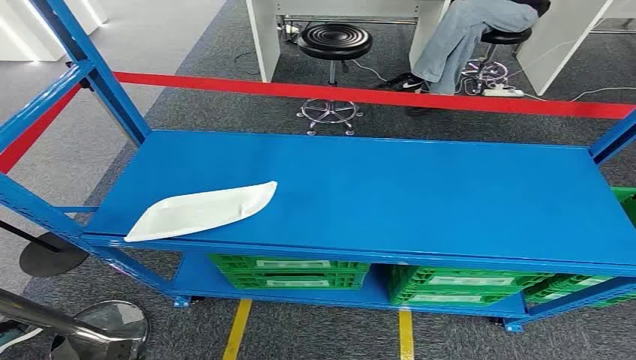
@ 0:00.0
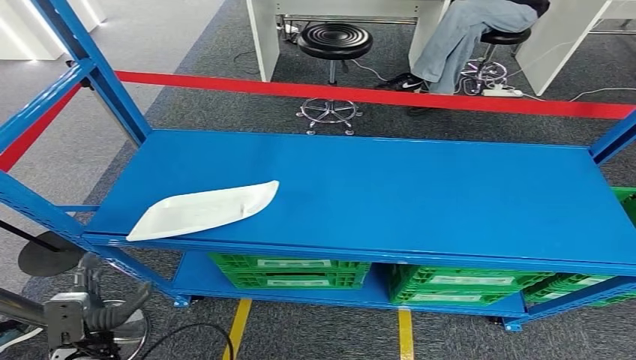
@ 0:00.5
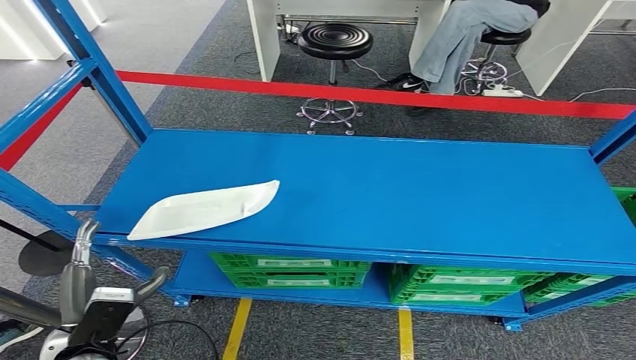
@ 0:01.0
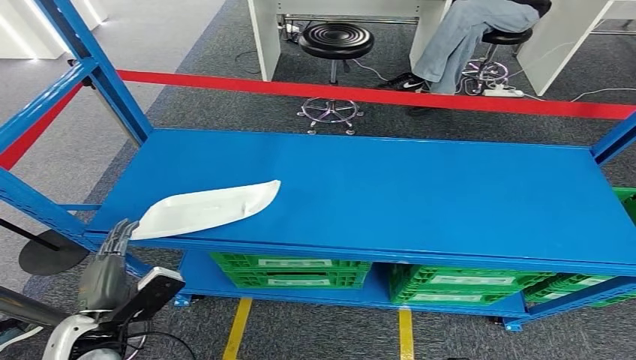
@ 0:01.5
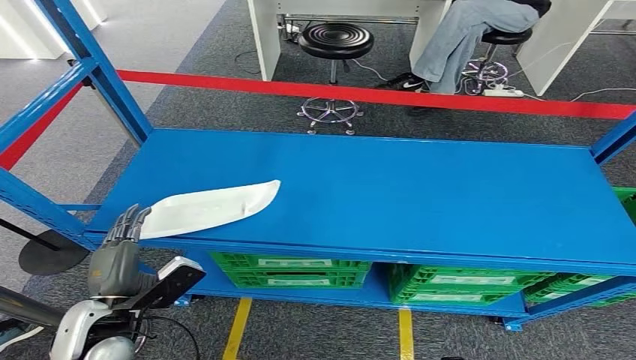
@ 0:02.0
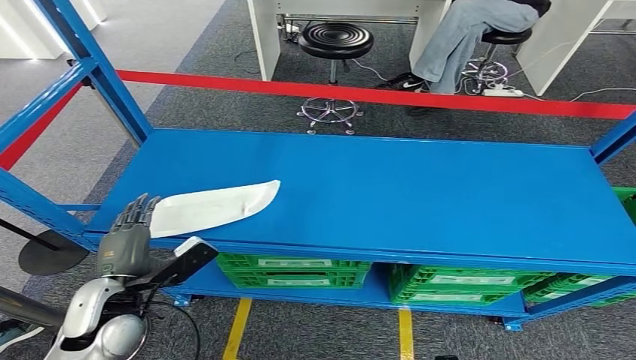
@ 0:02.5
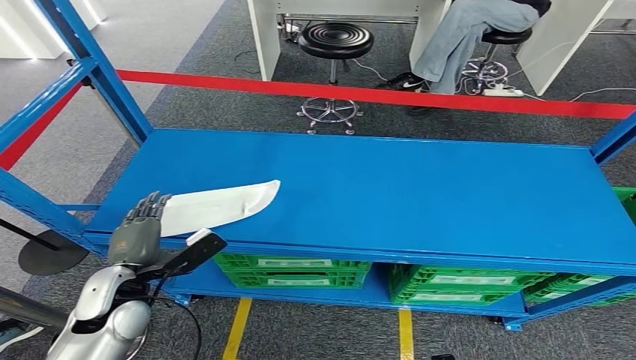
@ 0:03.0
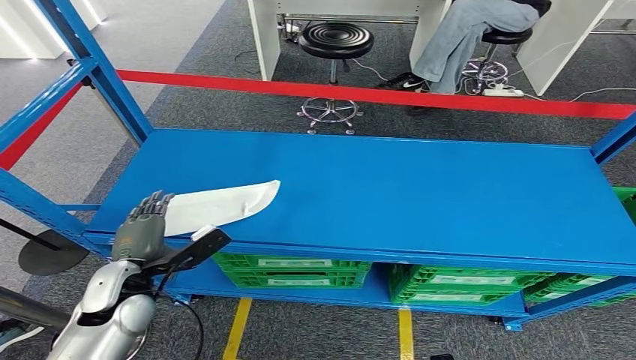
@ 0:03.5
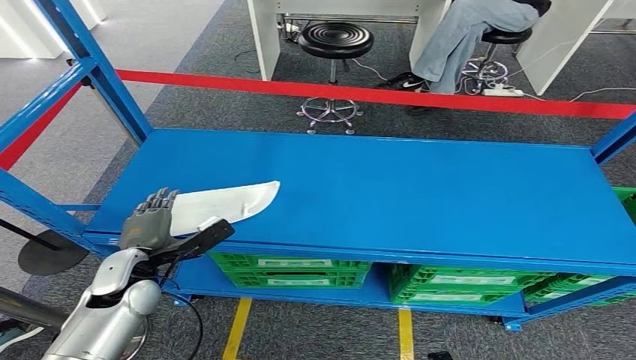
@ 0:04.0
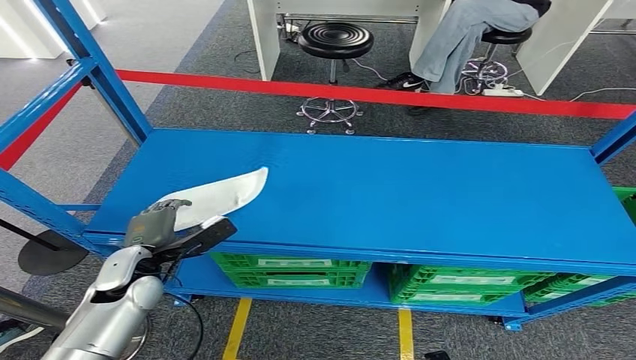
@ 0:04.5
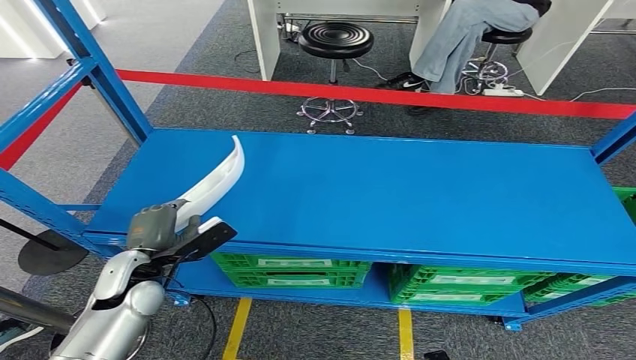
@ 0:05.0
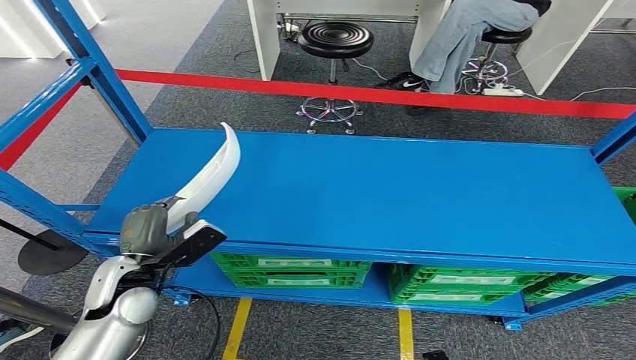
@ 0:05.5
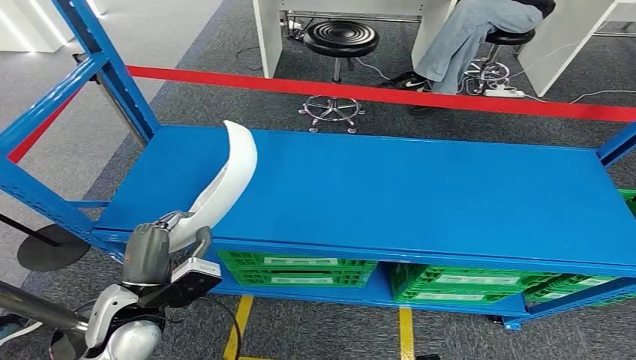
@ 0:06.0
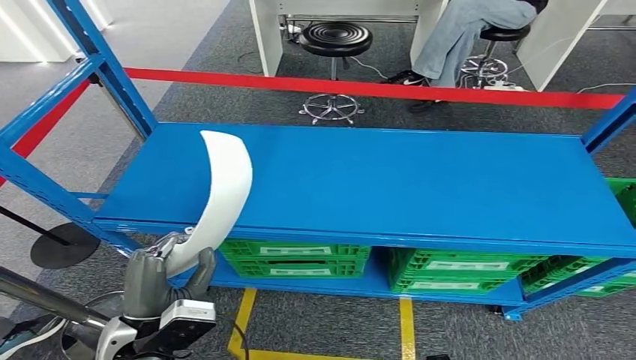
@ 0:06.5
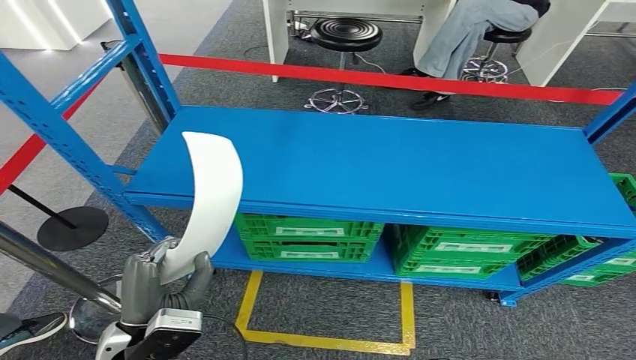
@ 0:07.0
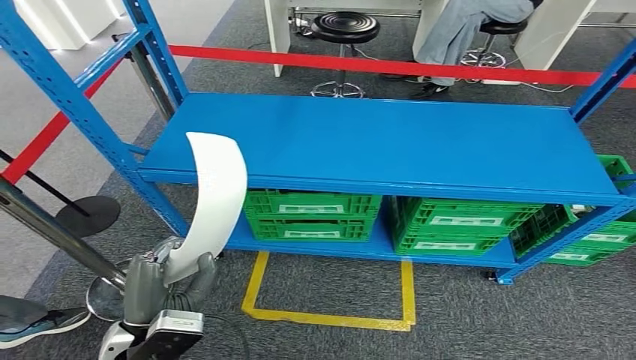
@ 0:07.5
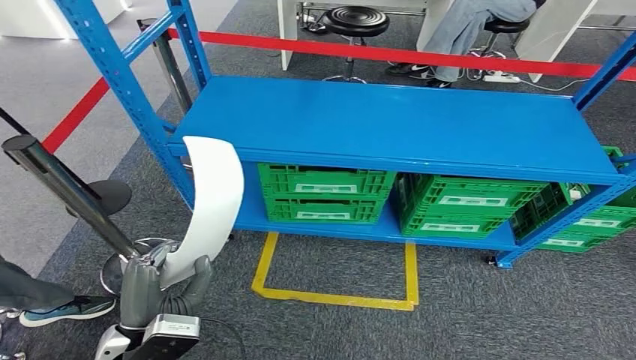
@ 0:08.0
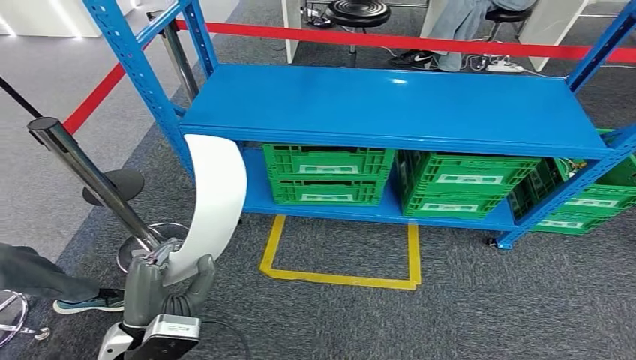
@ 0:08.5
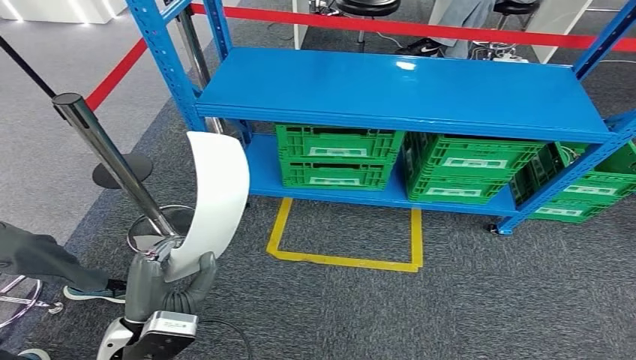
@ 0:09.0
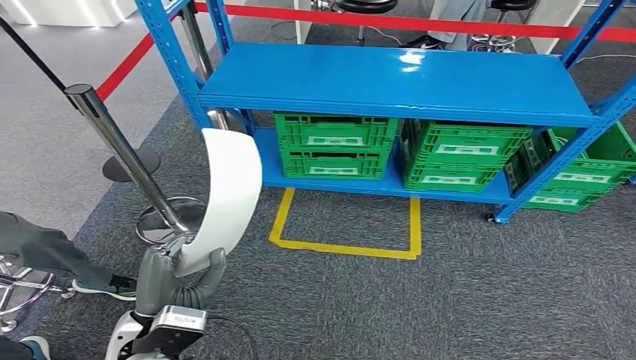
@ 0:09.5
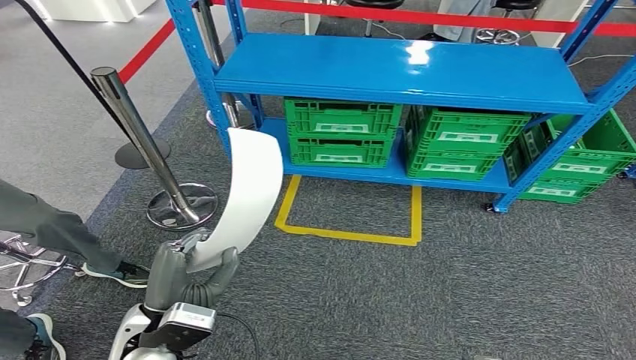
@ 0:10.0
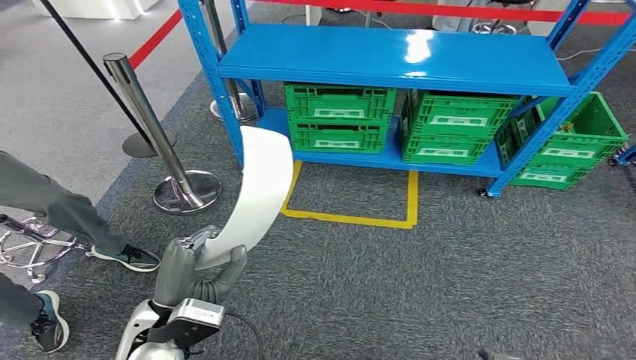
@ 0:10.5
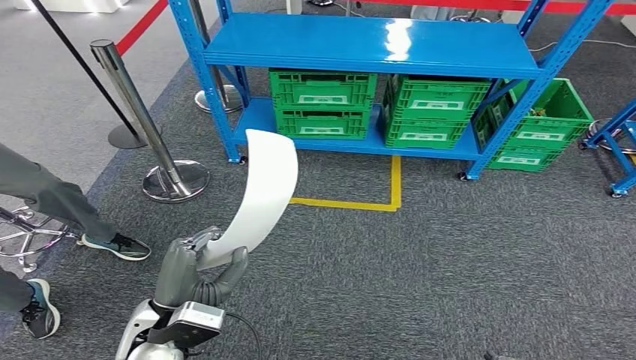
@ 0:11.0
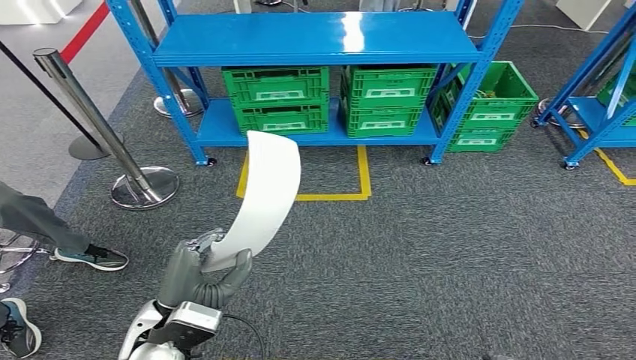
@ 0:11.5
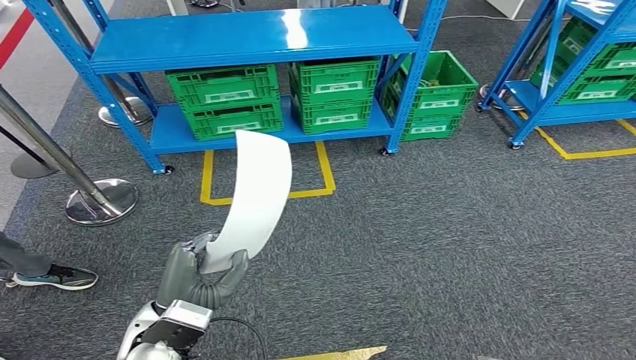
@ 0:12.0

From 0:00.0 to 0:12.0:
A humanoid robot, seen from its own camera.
Step, from 0:00.0 to 0:08.0: Pick up the small component from the shelf.
From 0:02.0 to 0:04.0: The left hand heads forward, covering about 10 cm.
From 0:04.0 to 0:06.0: The left hand goes about 5 cm backward.

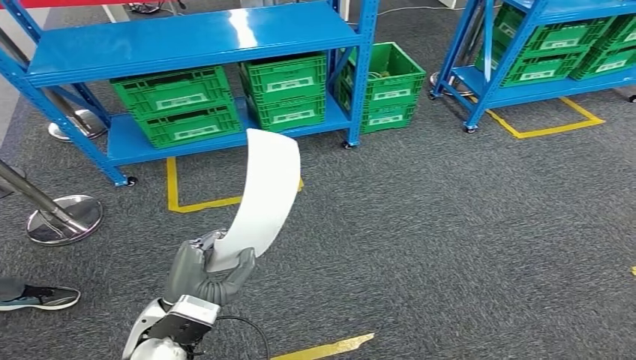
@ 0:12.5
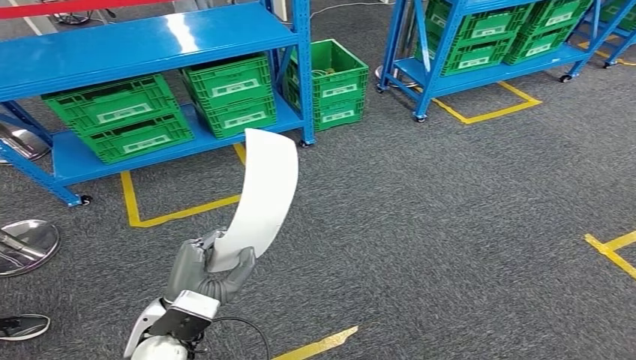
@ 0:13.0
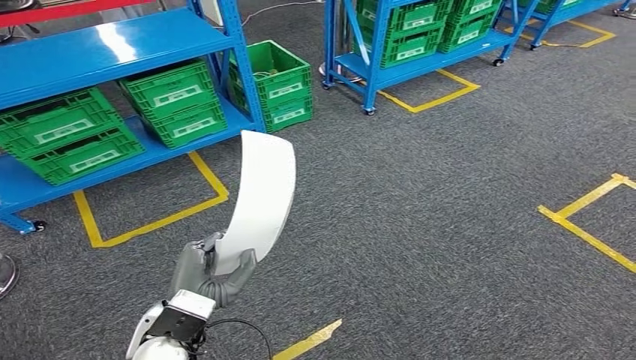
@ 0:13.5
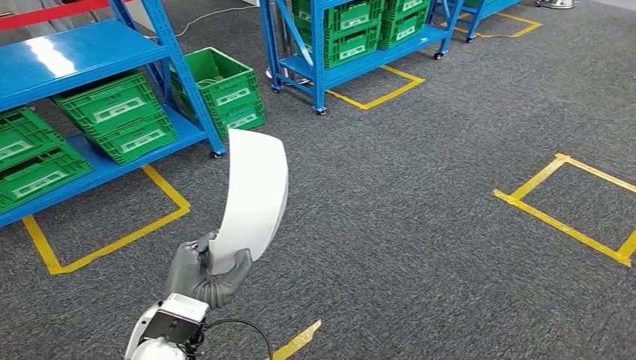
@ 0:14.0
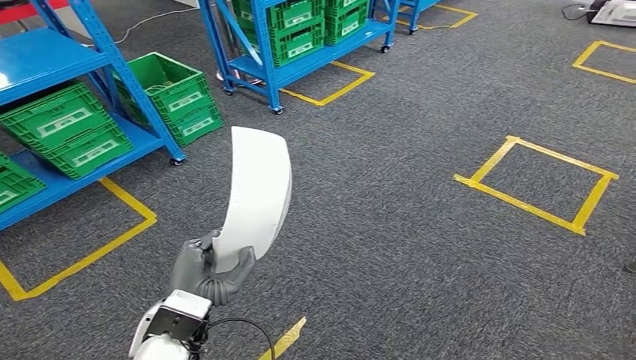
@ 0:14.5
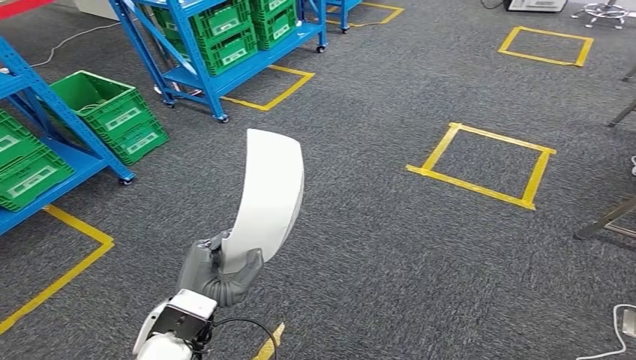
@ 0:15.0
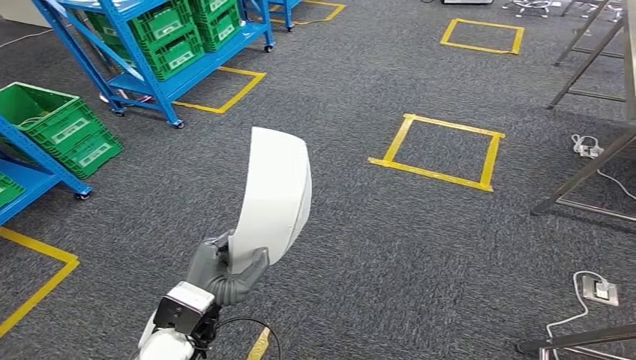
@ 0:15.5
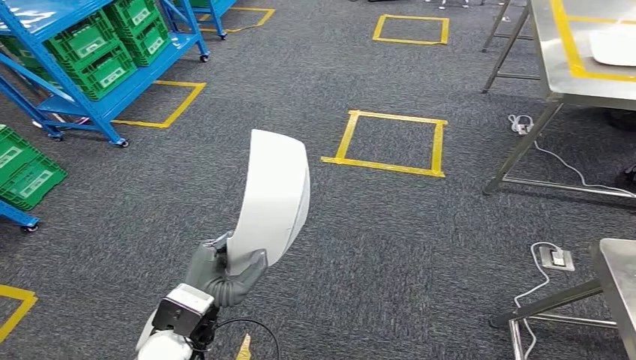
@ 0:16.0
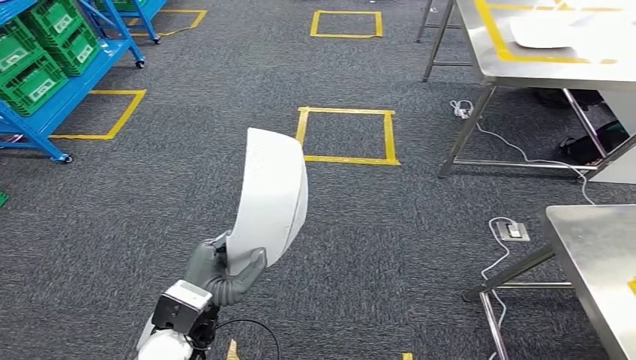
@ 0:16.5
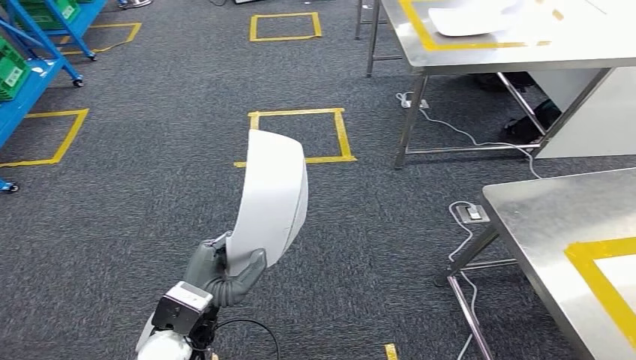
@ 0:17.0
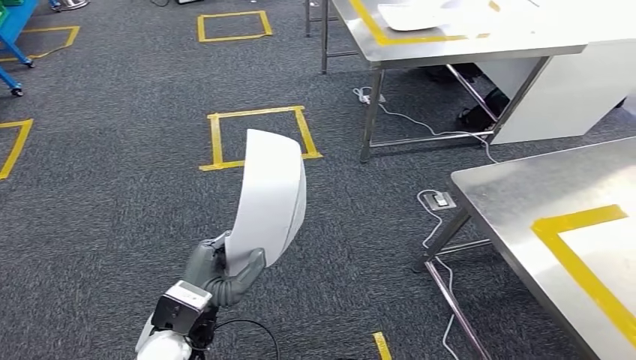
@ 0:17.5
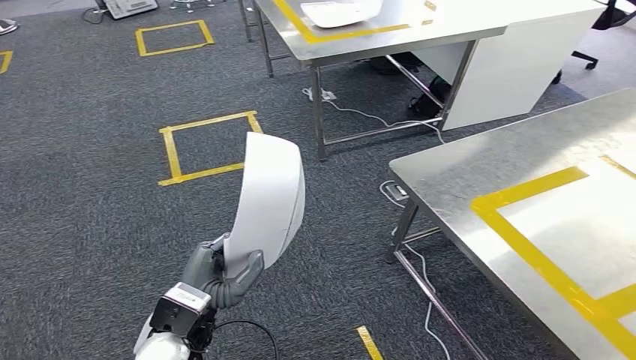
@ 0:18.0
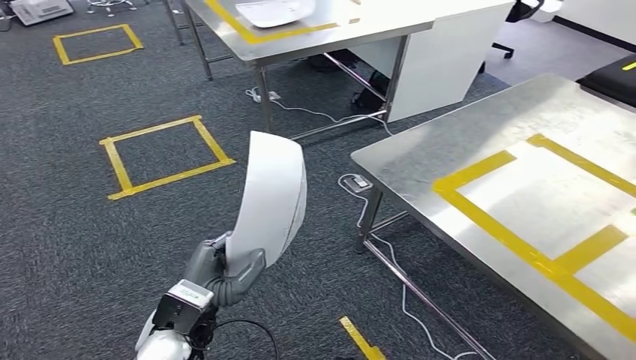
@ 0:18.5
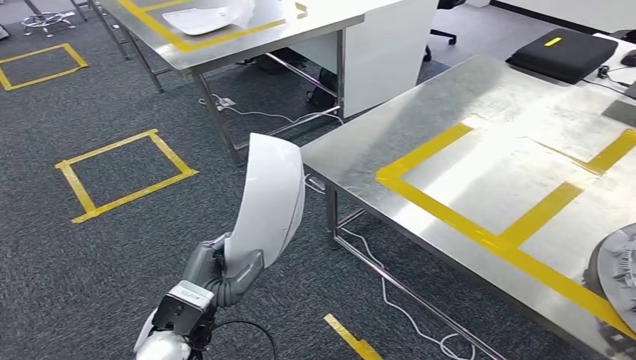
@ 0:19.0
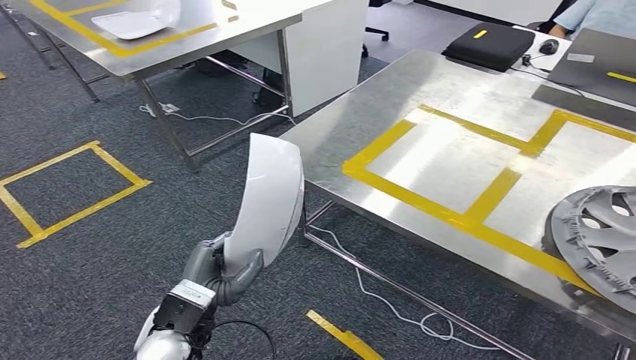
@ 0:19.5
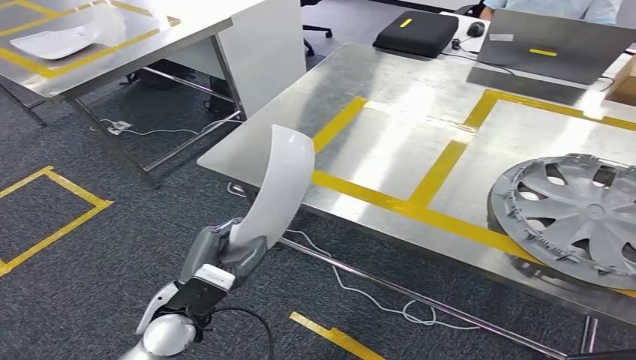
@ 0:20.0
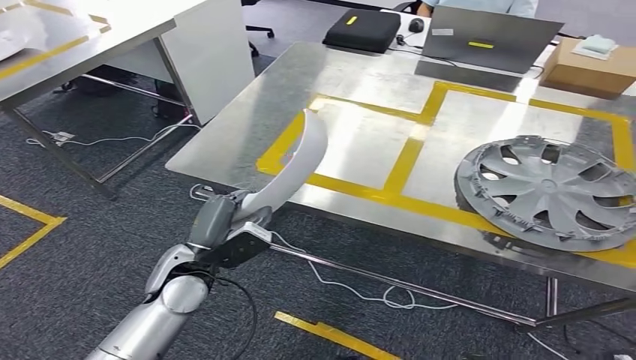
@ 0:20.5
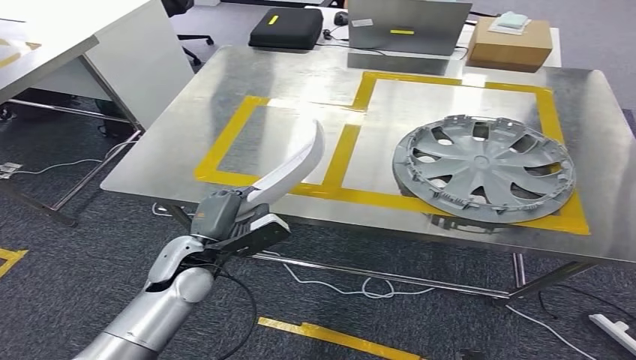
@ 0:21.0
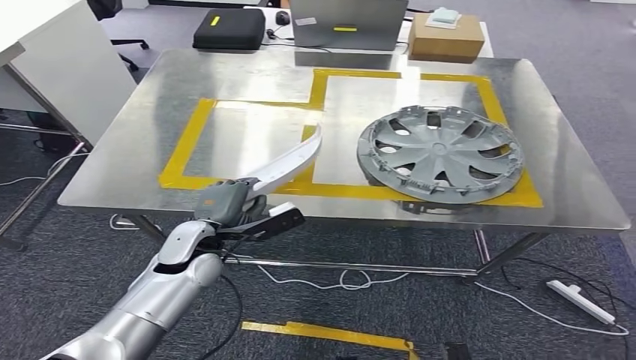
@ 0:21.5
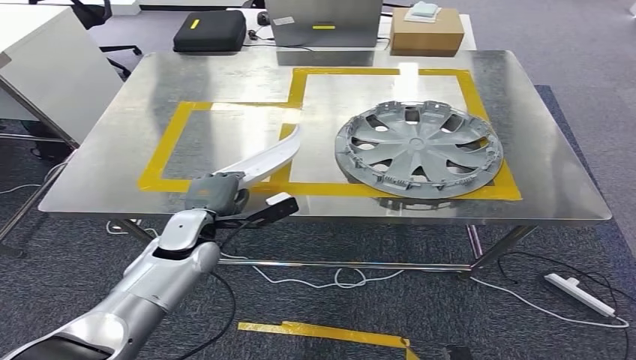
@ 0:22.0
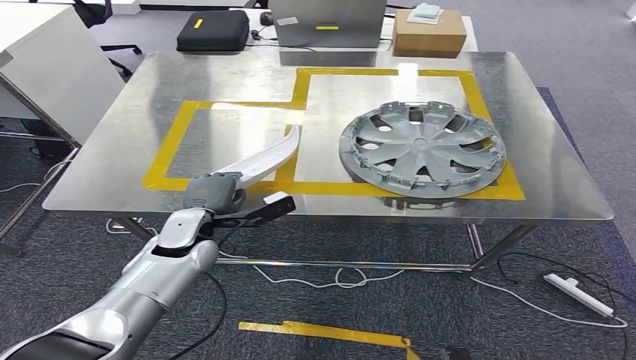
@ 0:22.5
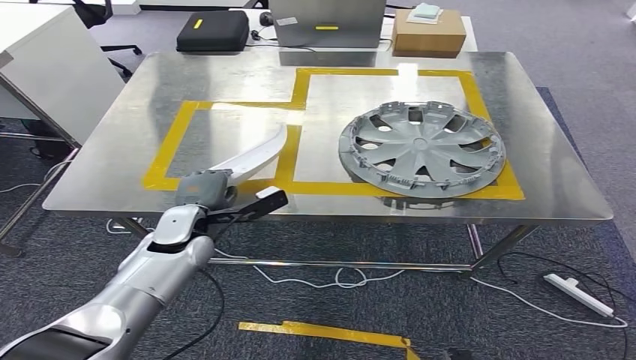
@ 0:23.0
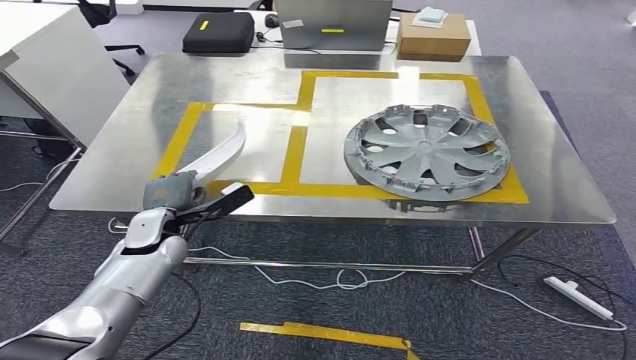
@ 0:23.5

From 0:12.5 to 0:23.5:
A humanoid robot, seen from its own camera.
Step, from 0:12.5 to 0:20.0: Move the small component to the workbench.
